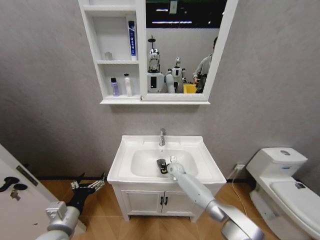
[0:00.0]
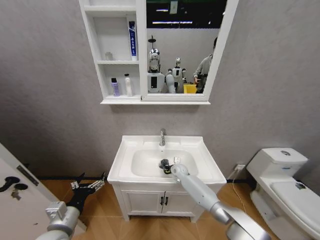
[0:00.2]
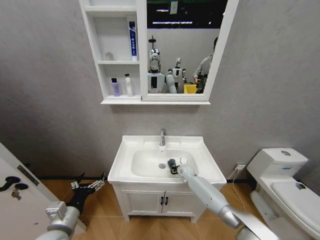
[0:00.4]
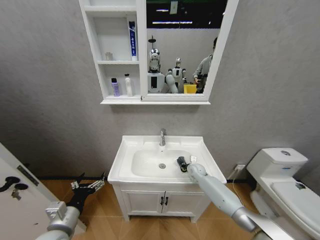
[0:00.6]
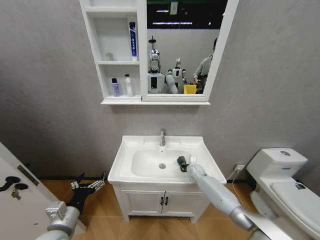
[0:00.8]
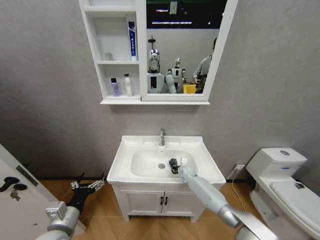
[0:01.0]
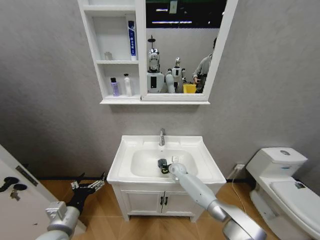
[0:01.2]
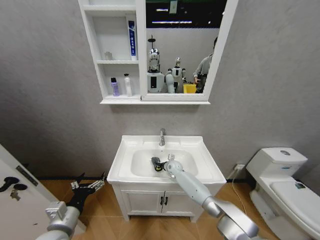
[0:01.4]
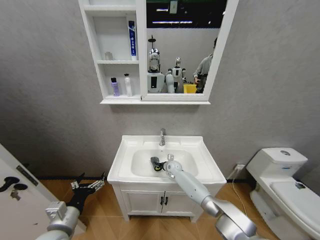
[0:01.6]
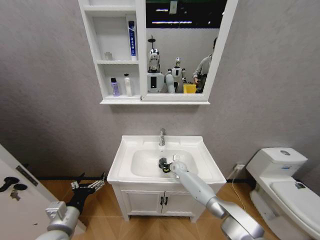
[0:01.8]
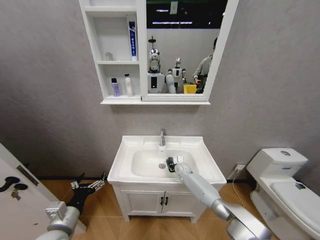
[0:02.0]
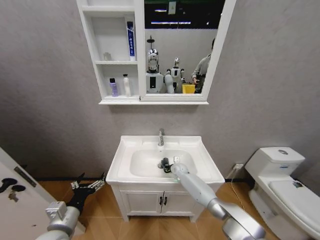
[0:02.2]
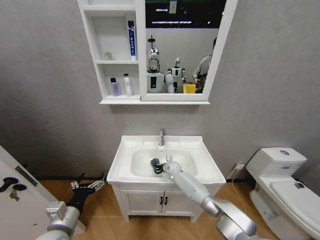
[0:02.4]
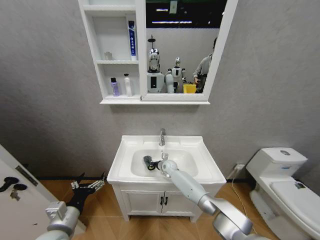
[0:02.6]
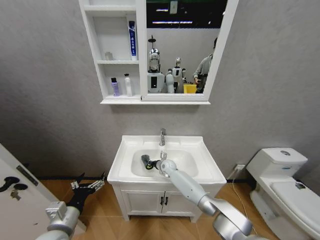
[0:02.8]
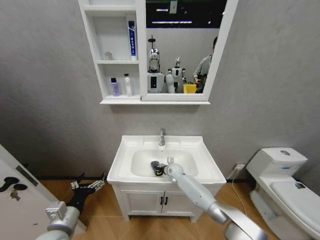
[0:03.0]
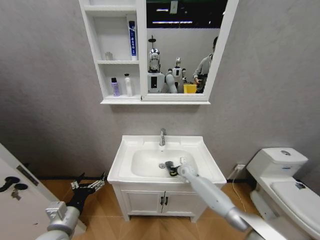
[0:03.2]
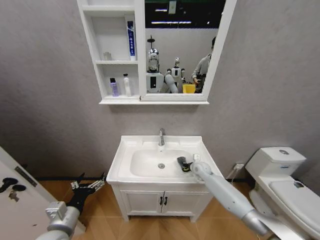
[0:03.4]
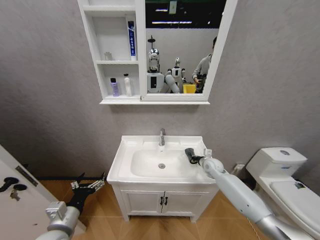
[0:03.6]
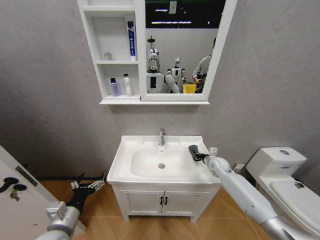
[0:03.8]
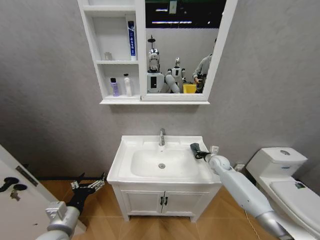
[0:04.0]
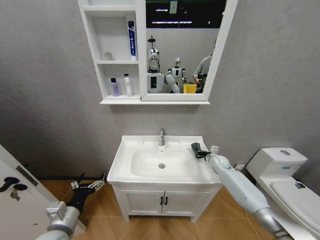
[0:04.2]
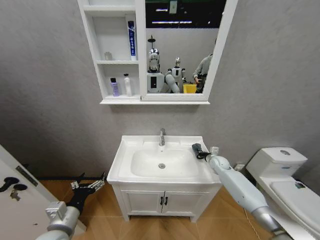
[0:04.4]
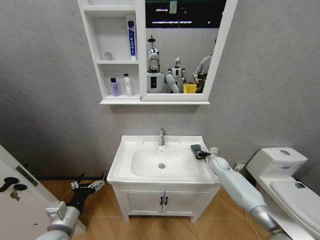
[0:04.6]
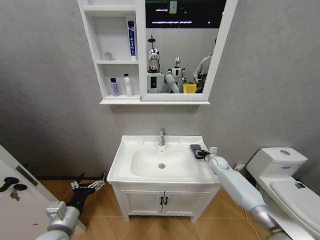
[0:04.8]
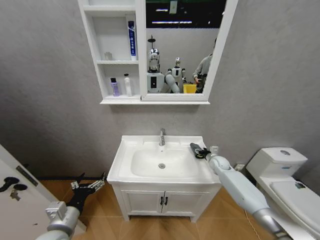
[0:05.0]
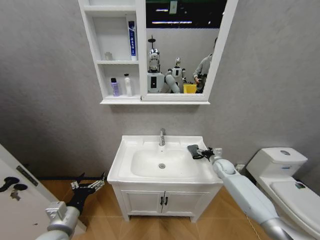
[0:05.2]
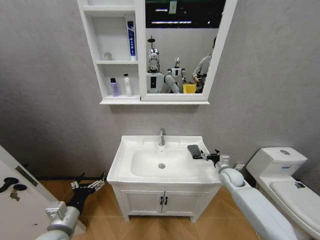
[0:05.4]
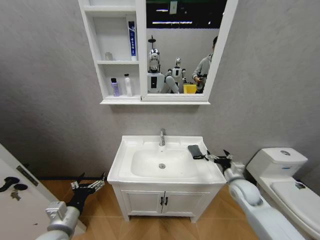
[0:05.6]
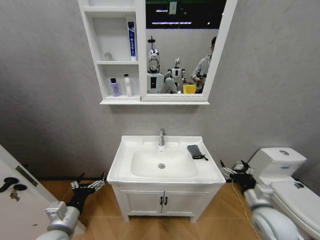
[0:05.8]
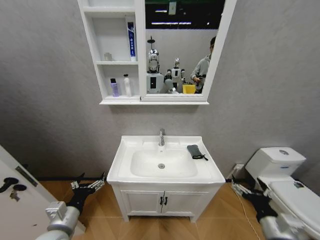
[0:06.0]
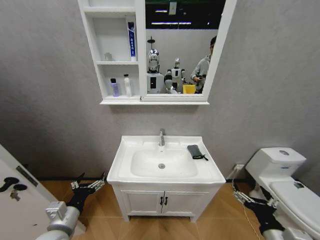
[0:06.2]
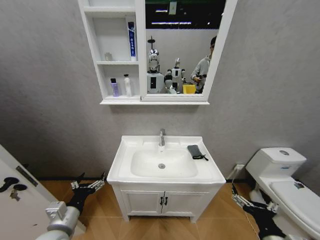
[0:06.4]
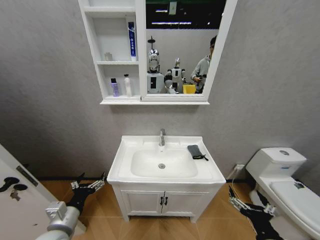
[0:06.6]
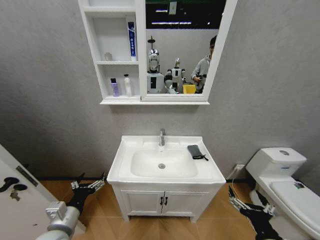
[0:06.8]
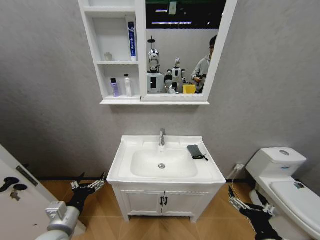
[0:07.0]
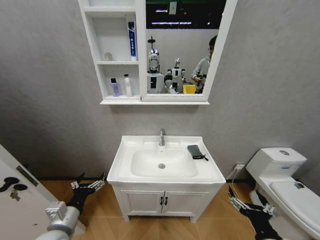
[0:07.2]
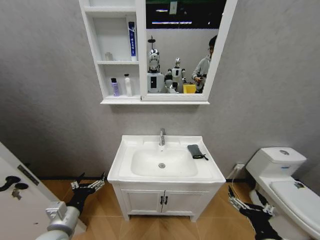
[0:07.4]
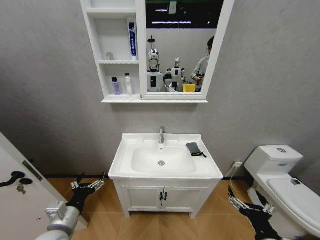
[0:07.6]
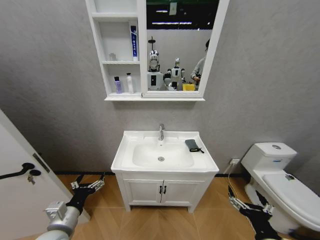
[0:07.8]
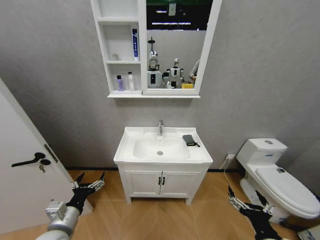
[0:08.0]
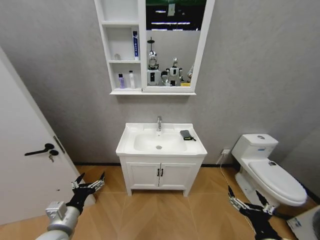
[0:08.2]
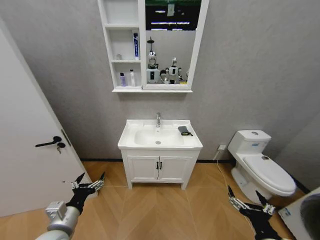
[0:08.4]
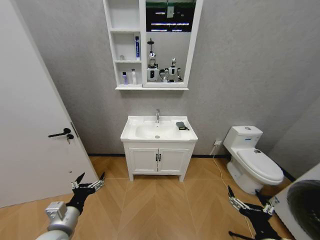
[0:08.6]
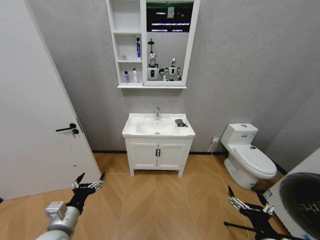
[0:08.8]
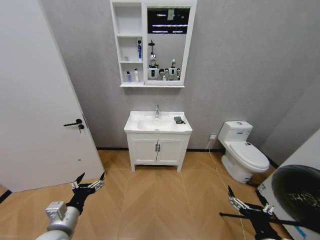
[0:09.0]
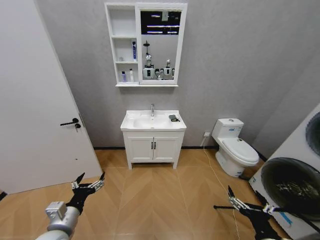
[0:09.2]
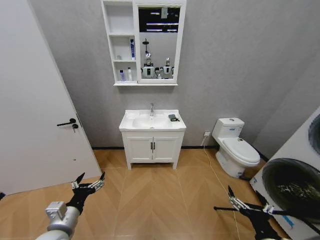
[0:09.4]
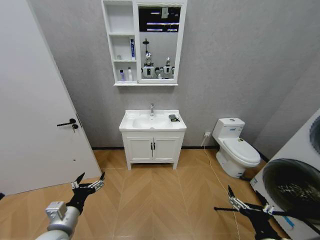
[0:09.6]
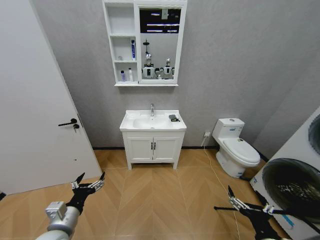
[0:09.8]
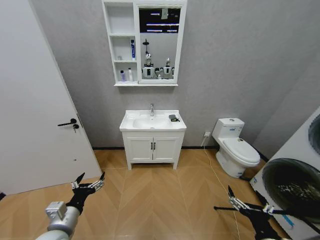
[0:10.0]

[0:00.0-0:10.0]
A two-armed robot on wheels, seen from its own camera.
Task of the whole recording: Move facial cleanser and shampoo from washbasin to cabinet, then wipe washbasin with towel.
0:00.0 to 0:01.4: The right gripper moves approximately 10 cm to the right and comes back.
0:01.4 to 0:02.8: The right gripper shifts by some 5 cm.
0:02.8 to 0:04.2: The right gripper travels to the right by roughly 30 cm.
0:04.2 to 0:05.8: The right gripper travels backward by about 30 cm, and opens up.
0:05.8 to 0:07.2: The right gripper shifts about 15 cm backward and to the left.

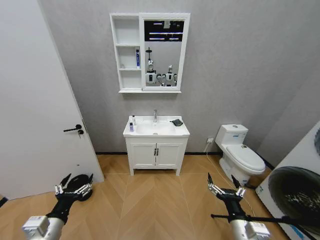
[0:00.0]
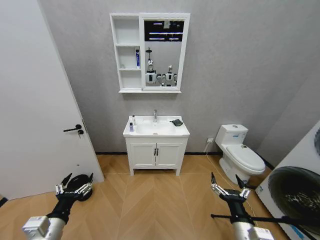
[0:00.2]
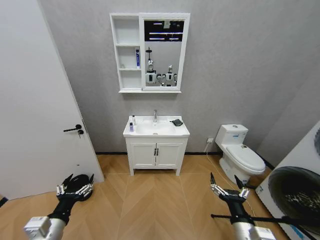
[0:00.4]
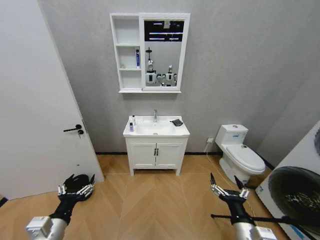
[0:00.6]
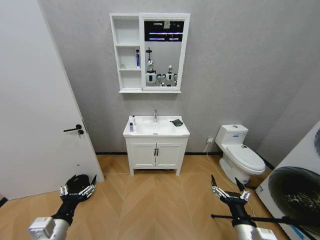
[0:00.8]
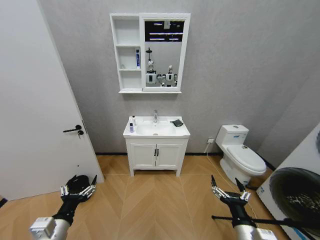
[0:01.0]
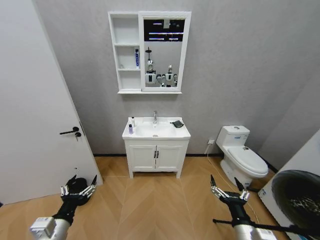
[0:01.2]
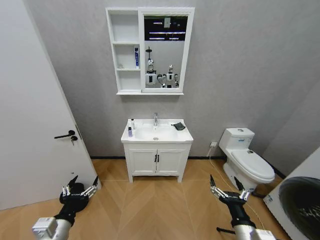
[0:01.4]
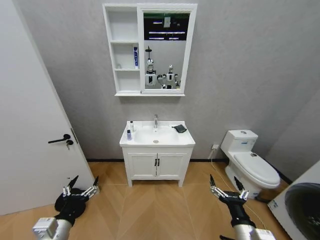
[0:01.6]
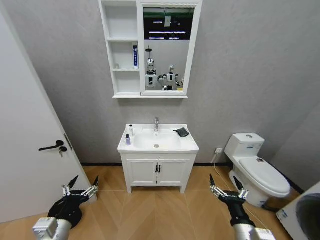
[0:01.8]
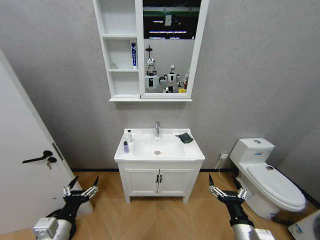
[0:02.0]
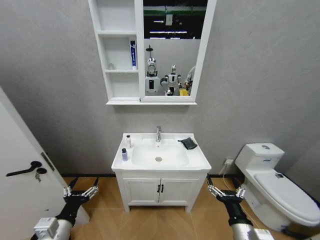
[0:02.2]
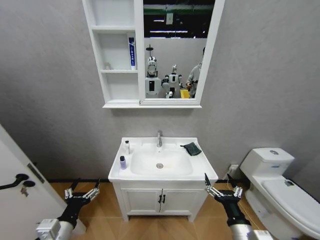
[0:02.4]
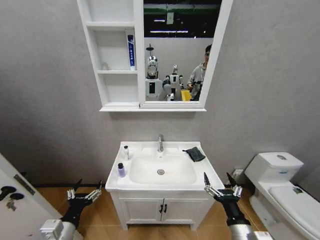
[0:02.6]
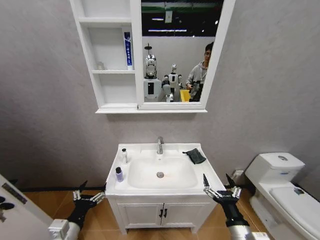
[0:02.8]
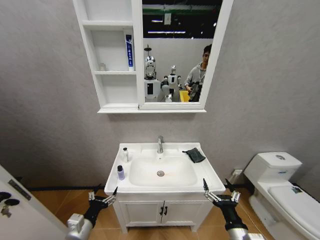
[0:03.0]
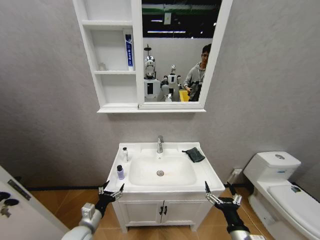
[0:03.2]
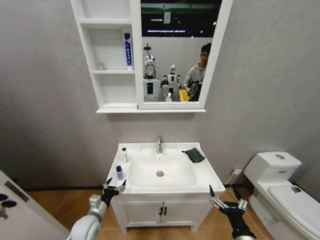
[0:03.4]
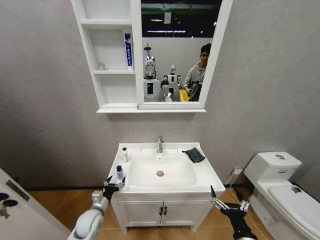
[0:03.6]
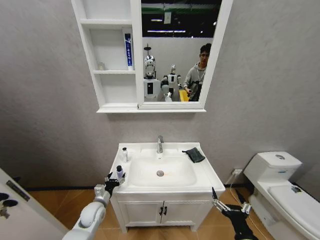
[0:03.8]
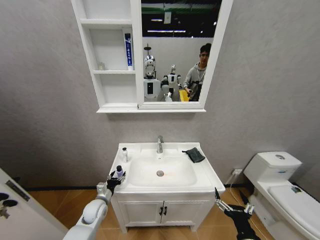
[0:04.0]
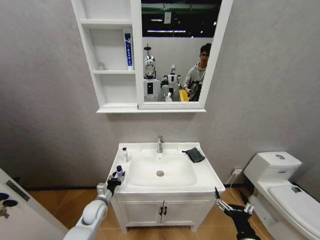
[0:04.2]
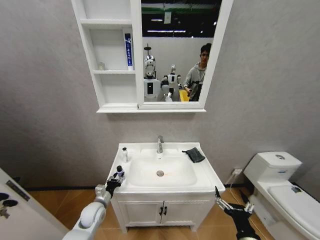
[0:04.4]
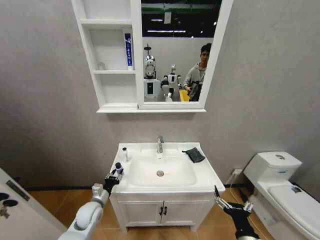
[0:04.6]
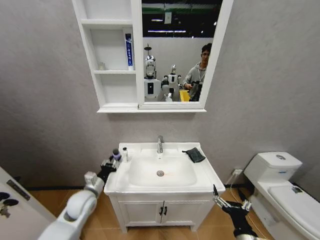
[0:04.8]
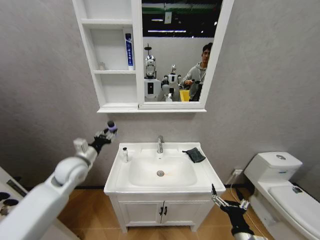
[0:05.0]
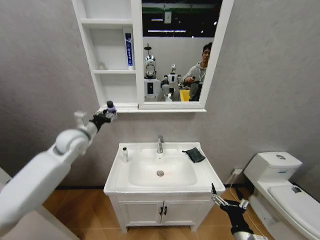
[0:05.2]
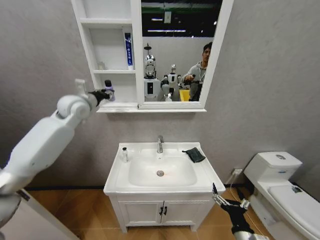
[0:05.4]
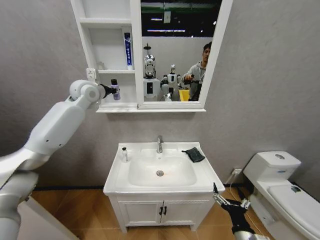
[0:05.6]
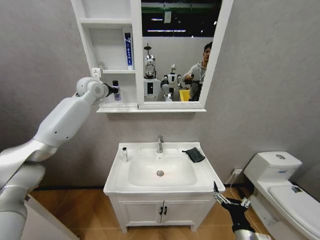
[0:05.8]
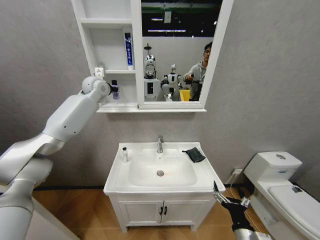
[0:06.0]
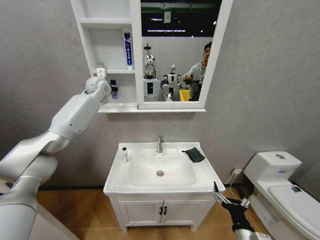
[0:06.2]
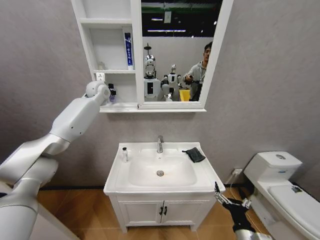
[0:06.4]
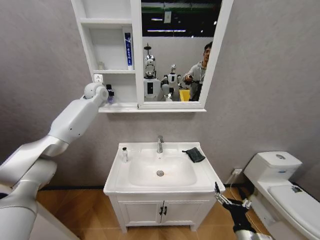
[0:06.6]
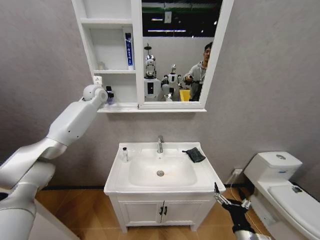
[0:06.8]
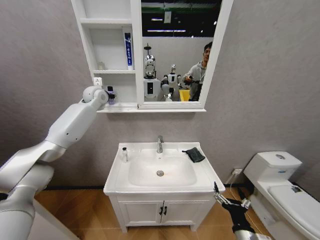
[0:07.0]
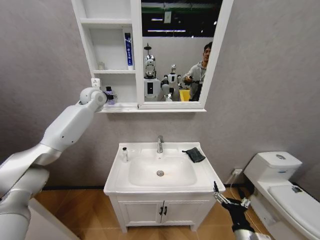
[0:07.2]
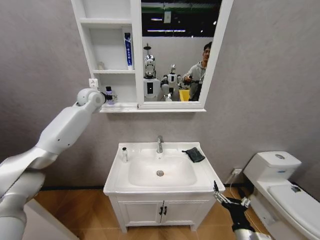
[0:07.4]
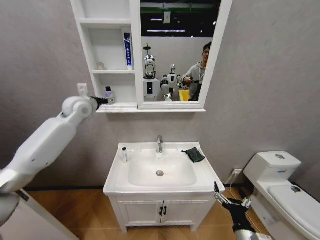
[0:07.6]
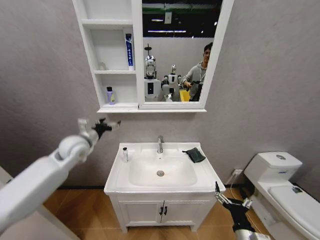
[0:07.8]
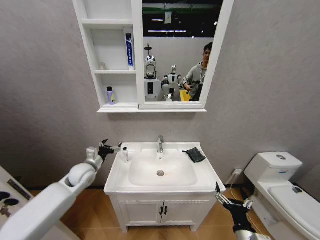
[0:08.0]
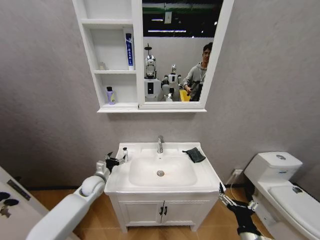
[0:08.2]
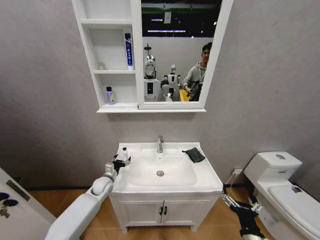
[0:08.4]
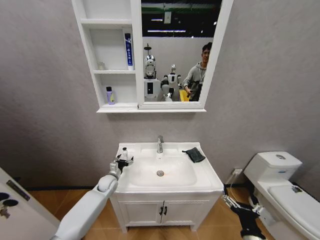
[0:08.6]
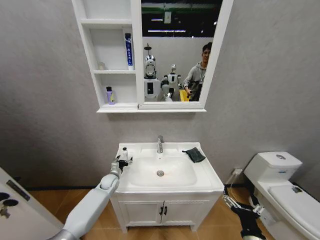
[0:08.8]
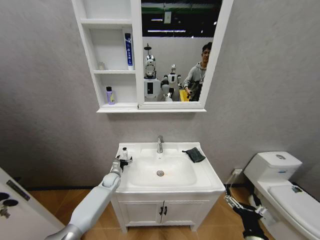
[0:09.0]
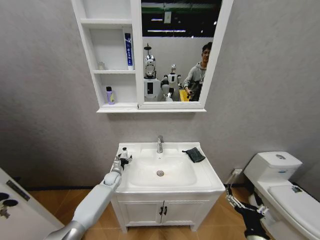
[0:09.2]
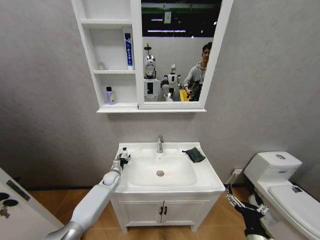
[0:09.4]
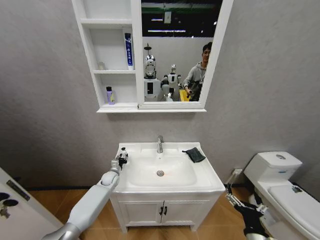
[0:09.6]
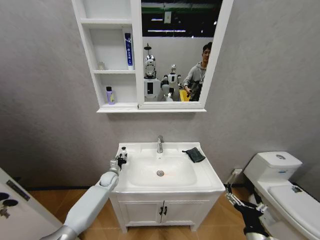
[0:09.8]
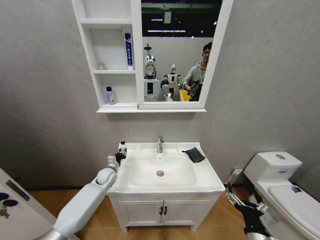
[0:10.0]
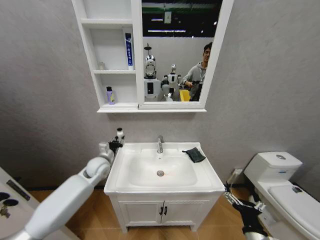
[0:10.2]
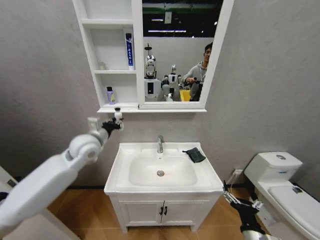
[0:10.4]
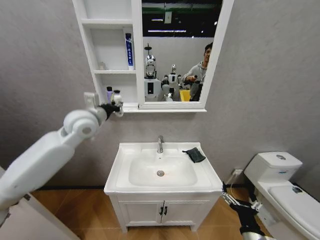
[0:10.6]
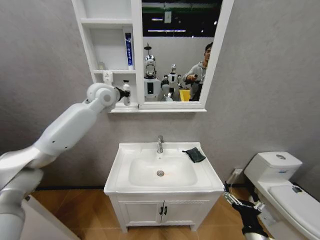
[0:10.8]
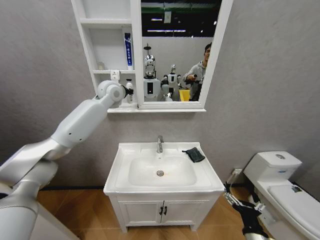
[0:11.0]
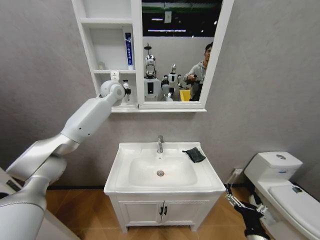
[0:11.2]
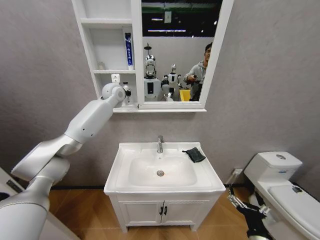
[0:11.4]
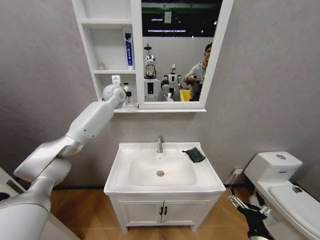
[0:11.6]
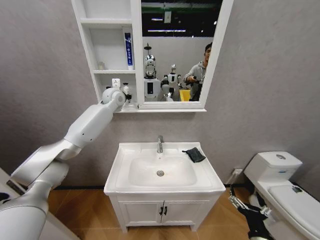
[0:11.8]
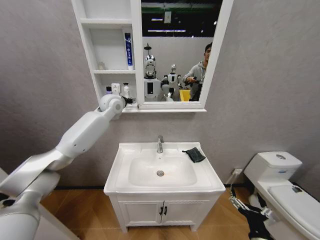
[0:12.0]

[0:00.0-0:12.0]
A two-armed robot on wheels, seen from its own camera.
Task of the whole recording: Move facial cleanser and shampoo from washbasin to cabinet, then wipe washbasin with towel.
0:01.6 to 0:03.0: The left gripper travels downward by roughly 5 cm.
0:03.0 to 0:04.4: The left gripper moves forward and downward, approximately 15 cm, and closes.
0:04.4 to 0:06.0: The left gripper is displaced upward and forward by some 60 cm.
0:06.0 to 0:07.6: The left gripper travels backward, downward and to the left by about 15 cm, and opens its fingers.
0:07.6 to 0:09.0: The left gripper is displaced downward by approximately 40 cm.
0:09.0 to 0:10.4: The left gripper goes roughly 35 cm upward, and closes its fingers.
0:10.4 to 0:12.0: The left gripper shifts approximately 15 cm forward and upward, and opens.
